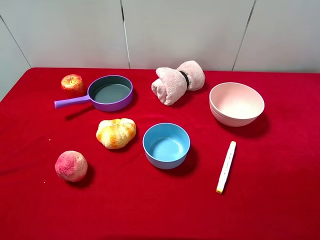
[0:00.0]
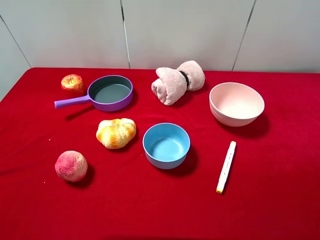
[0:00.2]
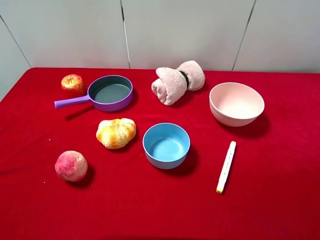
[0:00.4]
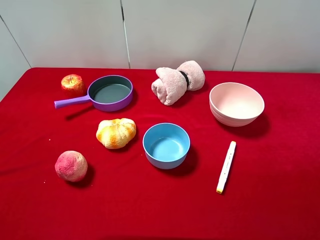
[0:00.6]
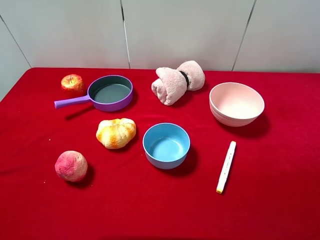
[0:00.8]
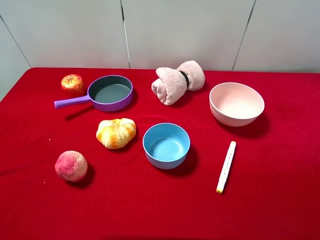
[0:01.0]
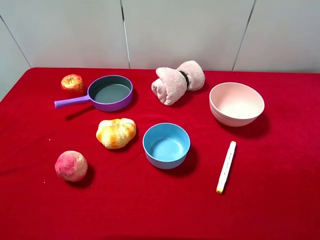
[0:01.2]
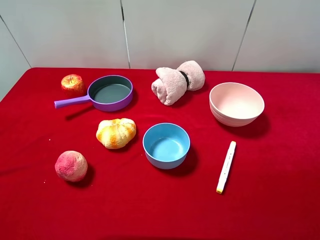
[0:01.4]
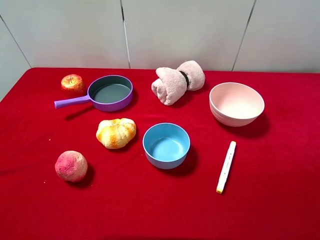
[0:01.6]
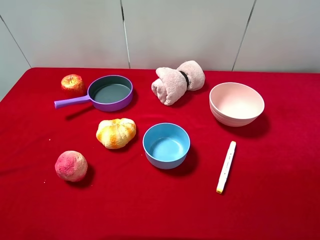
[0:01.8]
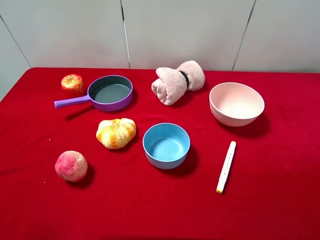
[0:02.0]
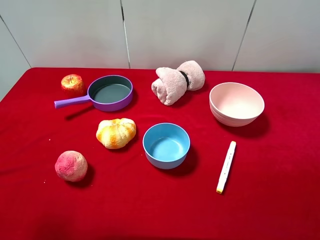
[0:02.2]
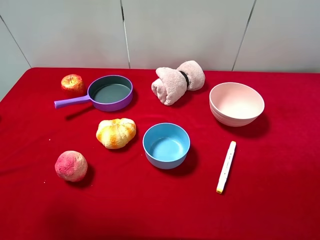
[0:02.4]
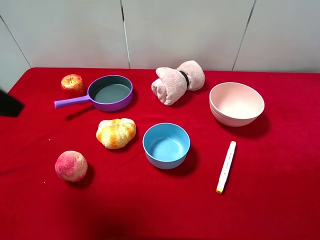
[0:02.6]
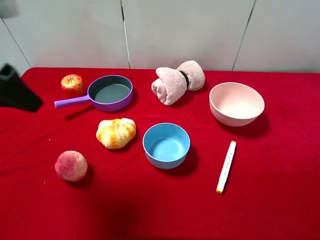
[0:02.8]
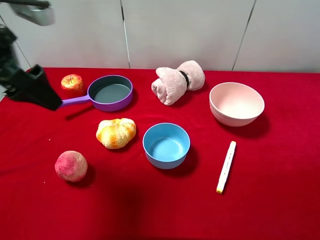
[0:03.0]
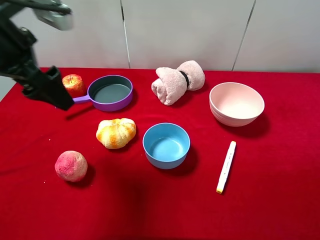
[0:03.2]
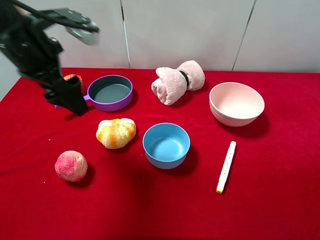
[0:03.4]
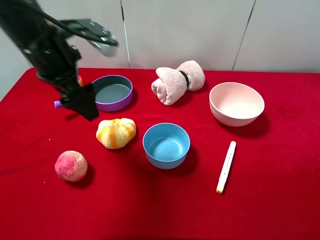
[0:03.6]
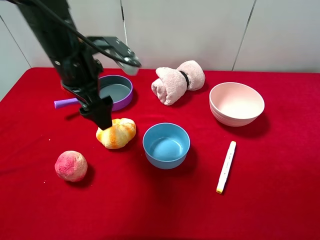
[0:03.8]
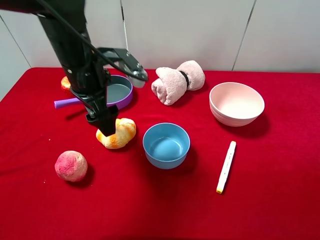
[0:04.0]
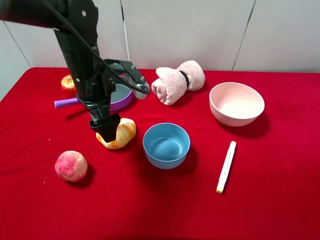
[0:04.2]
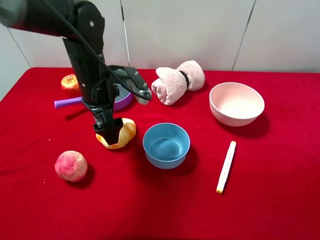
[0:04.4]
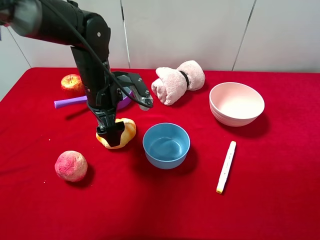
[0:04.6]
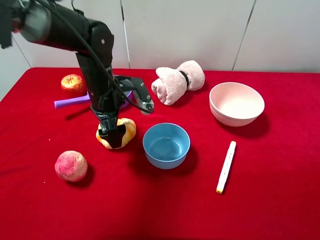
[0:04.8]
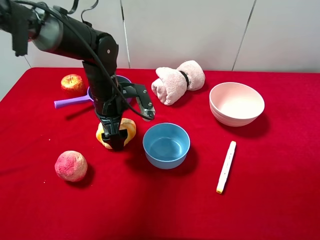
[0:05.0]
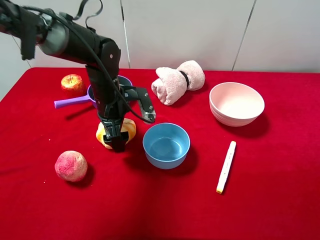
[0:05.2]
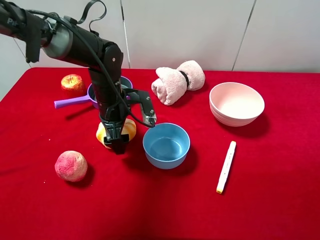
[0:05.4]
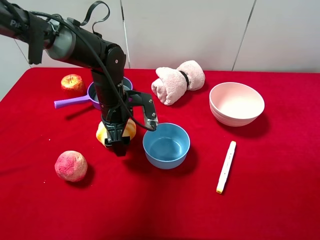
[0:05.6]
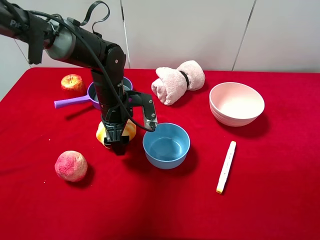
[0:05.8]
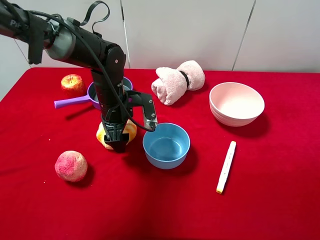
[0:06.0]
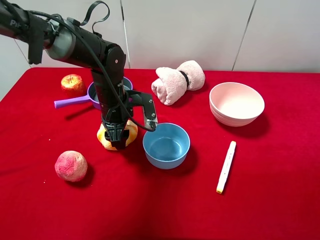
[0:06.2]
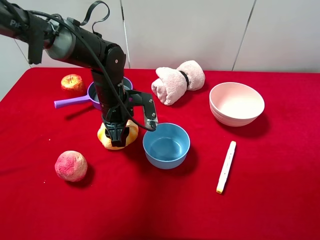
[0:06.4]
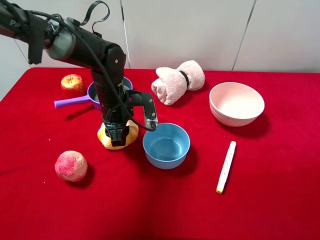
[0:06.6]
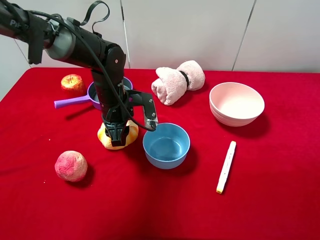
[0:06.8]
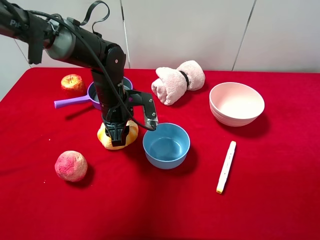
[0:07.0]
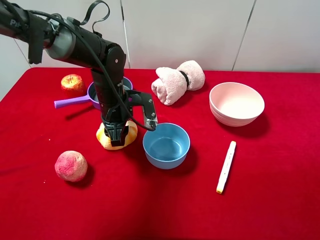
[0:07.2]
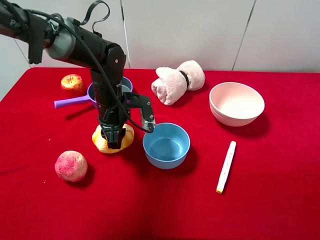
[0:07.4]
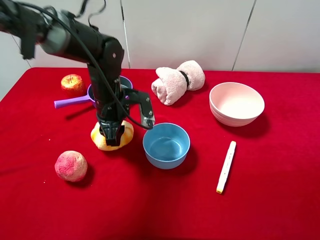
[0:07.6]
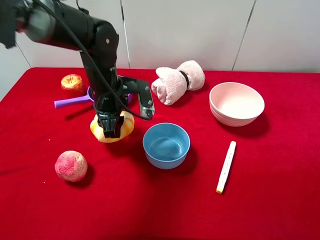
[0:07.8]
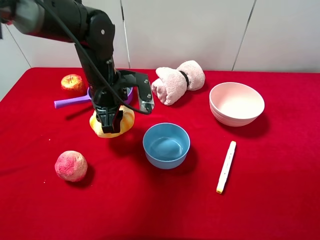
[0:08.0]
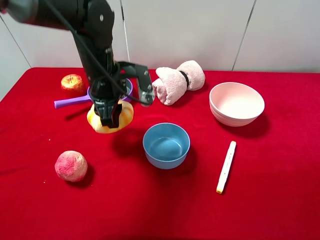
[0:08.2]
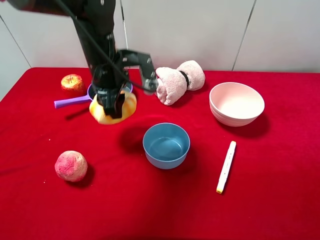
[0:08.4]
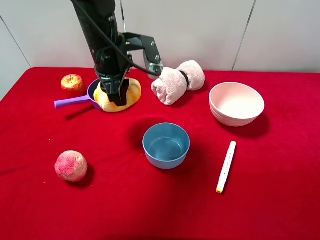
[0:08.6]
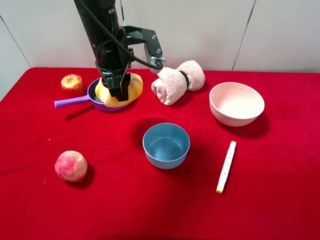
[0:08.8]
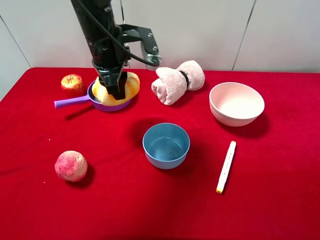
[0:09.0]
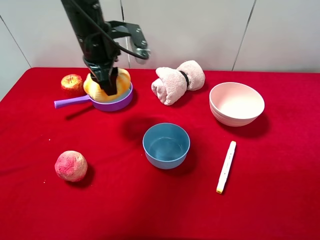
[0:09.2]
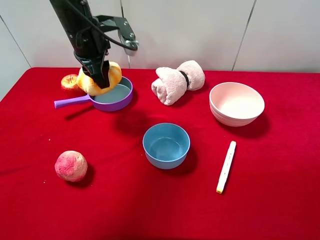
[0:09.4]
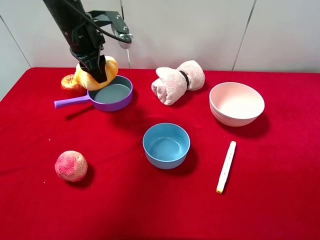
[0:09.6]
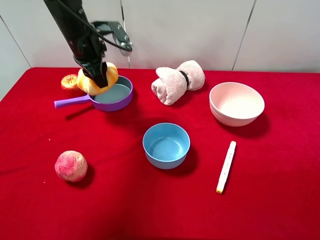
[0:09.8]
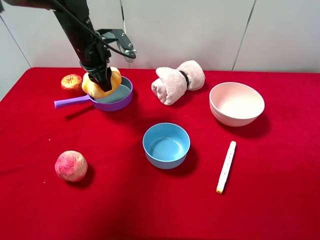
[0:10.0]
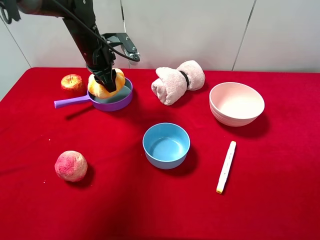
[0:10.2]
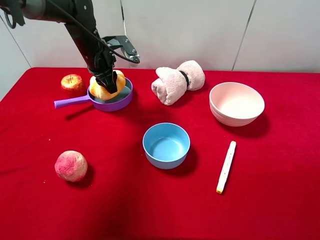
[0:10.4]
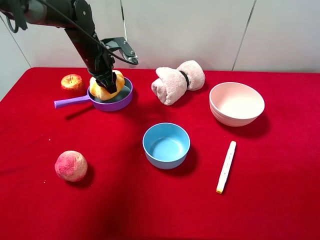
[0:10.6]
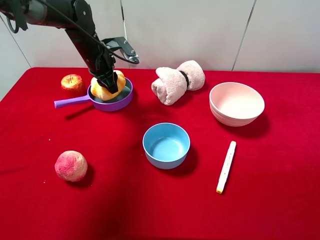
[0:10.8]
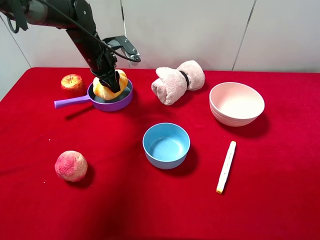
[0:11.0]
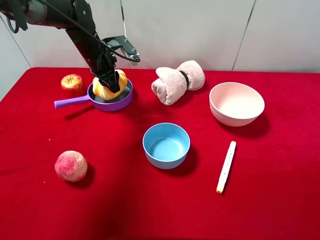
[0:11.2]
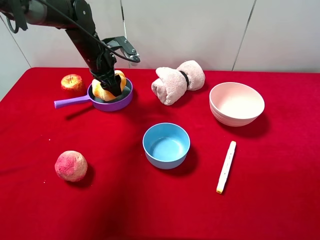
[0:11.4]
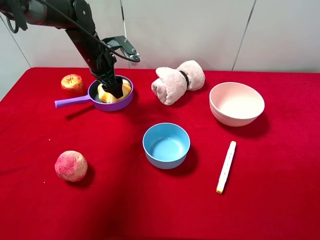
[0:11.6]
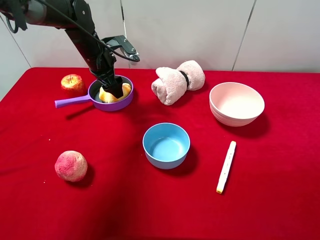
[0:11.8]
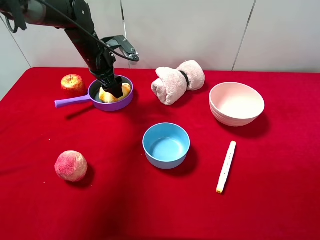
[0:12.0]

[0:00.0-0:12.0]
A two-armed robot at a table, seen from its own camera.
Task of the whole recording: pick up an item with a gripper and place it in a random container on the desktop.
0:01.6 to 0:03.0: The left gripper shifts some 25 cm forward.
0:03.0 to 0:04.4: The left gripper travels downward, to the right and forward by some 20 cm.
0:04.4 to 0:06.0: The left gripper moves downward, approximately 5 cm, and closes up.
0:06.0 to 0:07.6: The left gripper closes up.
0:07.6 to 0:09.0: The left gripper travels upward by some 10 cm.
0:09.0 to 0:10.4: The left gripper is displaced forward, downward and to the left by about 15 cm.
0:10.4 to 0:12.0: The left gripper opens up.

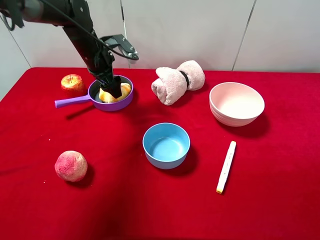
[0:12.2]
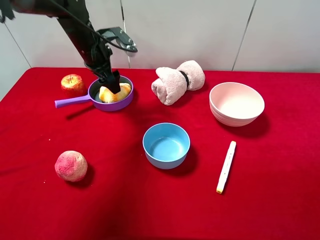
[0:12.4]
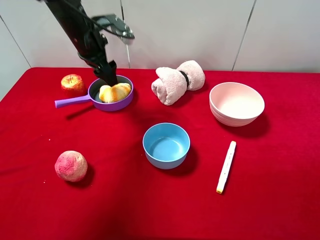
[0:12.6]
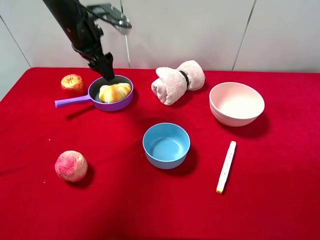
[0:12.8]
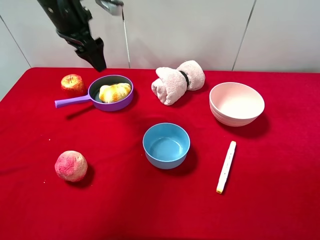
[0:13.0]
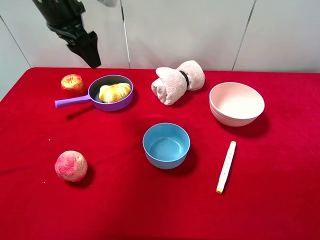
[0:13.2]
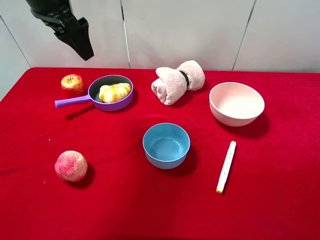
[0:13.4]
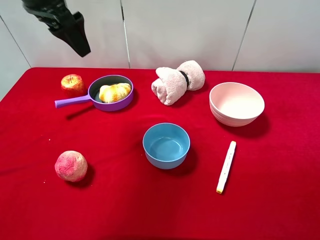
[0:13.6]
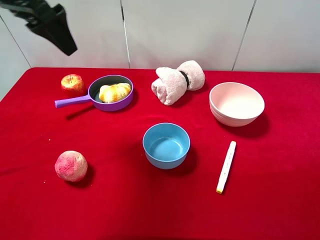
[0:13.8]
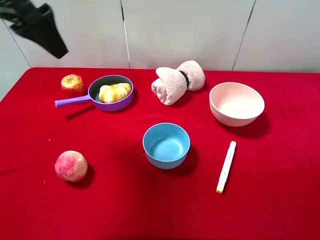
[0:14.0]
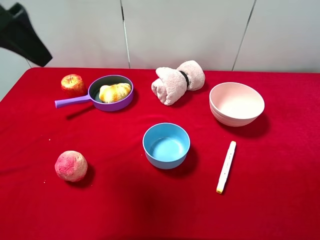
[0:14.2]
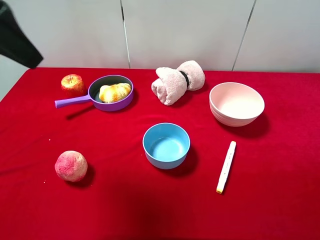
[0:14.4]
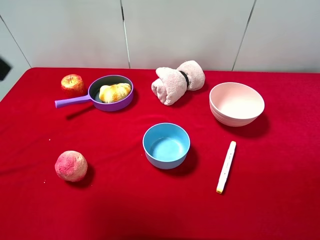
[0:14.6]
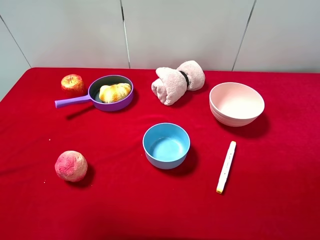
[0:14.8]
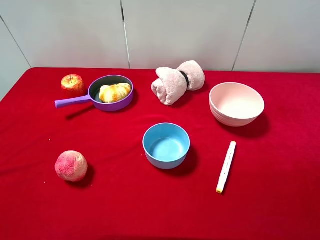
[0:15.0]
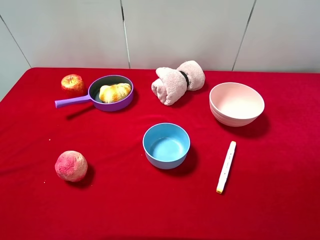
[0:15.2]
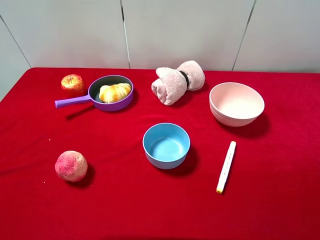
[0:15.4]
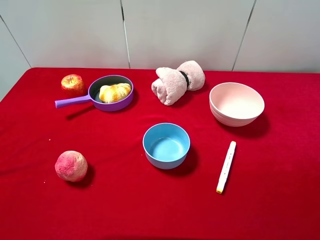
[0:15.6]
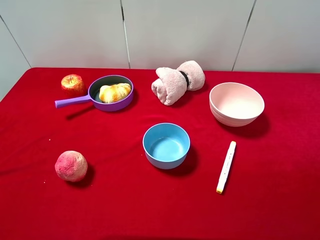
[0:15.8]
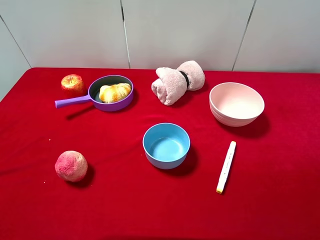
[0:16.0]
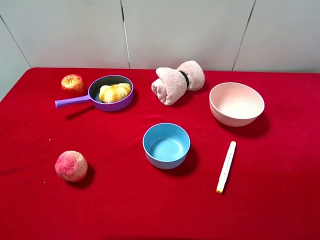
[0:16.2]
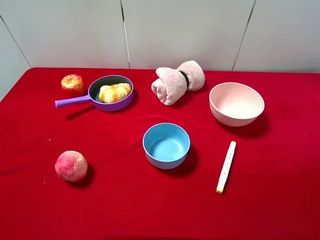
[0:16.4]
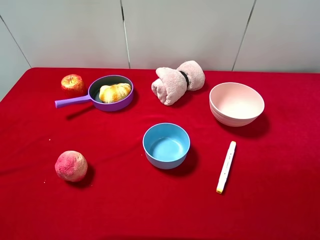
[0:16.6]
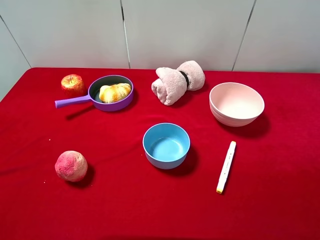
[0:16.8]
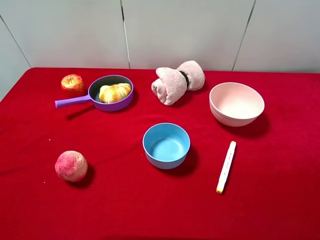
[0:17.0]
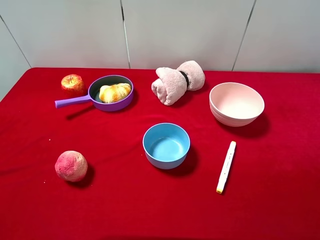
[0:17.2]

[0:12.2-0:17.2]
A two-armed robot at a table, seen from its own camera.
Task of the whole recording: pick up an item with a gripper and place it in a random container on the desktop.
0:12.2 to 0:13.8: The left gripper is displaced upward and backward by about 25 cm.
0:13.8 to 0:15.6: The left gripper moves backward, approximately 30 cm.

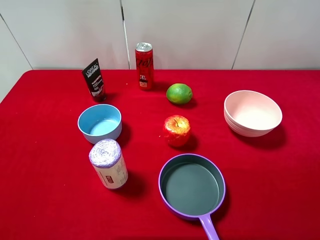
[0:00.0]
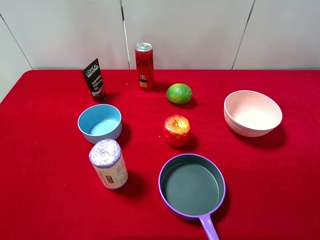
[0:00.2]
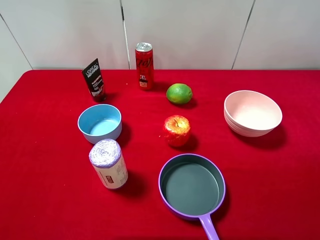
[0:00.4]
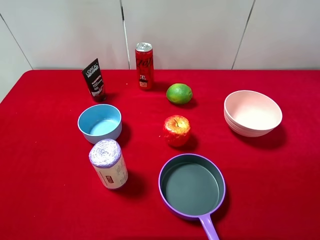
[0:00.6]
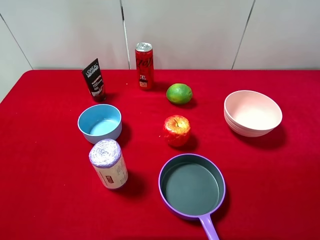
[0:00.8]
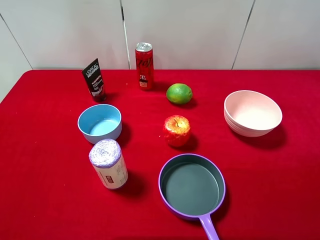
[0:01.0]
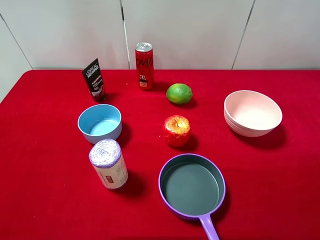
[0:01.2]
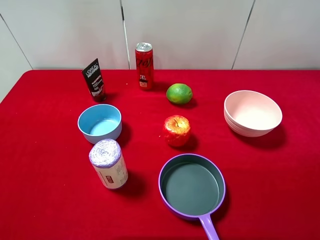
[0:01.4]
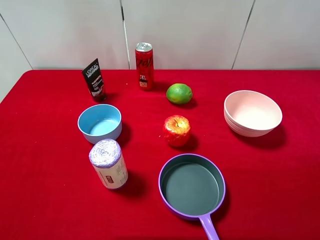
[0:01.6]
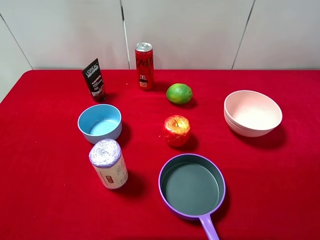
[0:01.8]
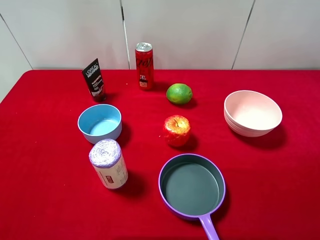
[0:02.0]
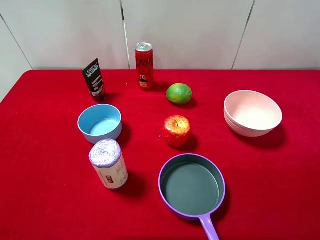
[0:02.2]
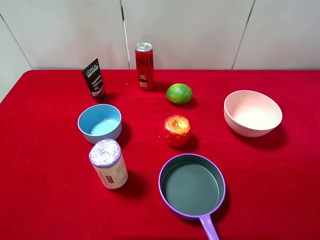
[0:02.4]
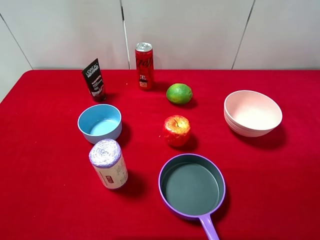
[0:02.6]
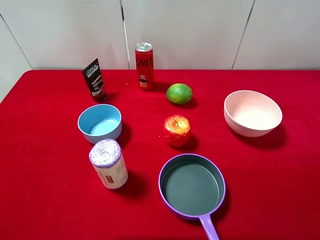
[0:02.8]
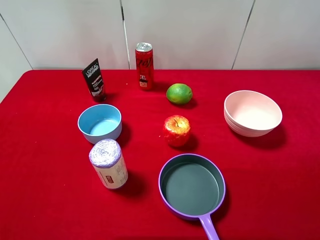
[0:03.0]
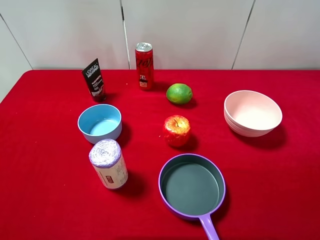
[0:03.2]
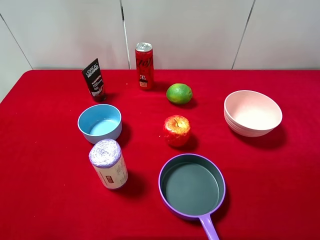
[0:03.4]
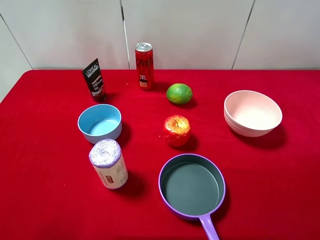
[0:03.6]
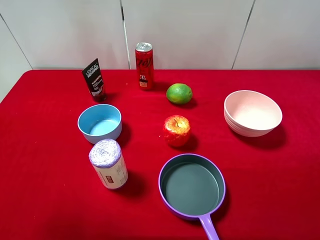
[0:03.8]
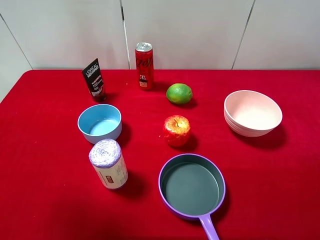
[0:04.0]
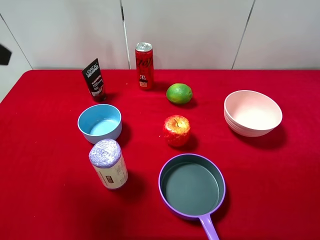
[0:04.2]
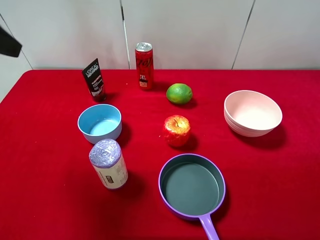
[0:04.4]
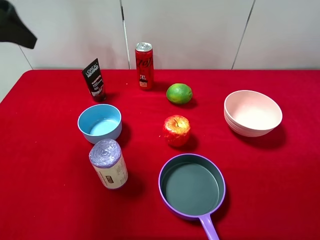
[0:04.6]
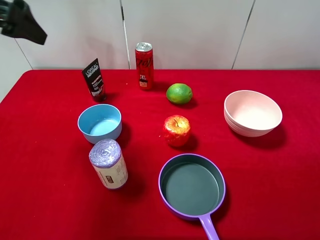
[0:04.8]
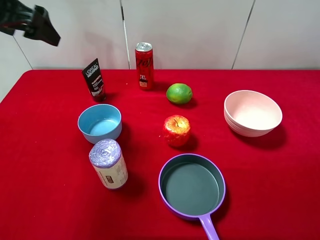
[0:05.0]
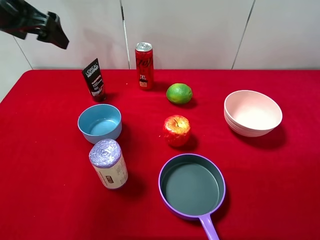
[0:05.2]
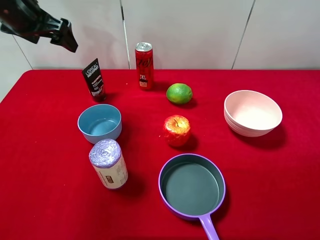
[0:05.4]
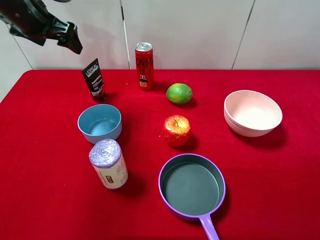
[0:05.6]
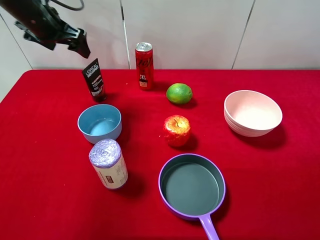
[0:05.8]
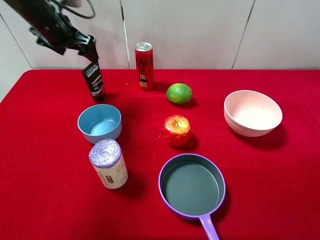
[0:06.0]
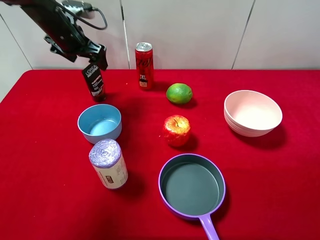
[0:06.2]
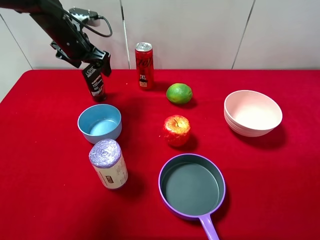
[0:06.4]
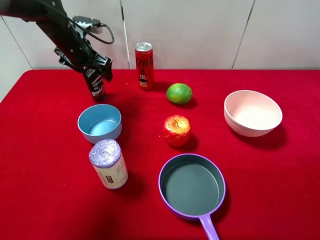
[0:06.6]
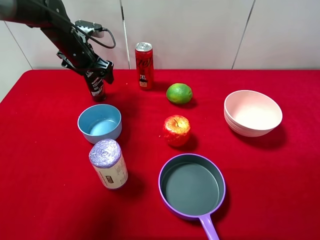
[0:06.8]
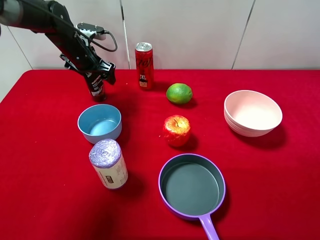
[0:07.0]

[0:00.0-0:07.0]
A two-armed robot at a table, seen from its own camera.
Task of the whole recording: pick up an item with a gripper and place it in a random container on the desktop.
0:01.4 to 0:02.8: Neither gripper changes place.
0:02.8 to 0:04.2: The left gripper is displaced forward and upward by about 20 cm.
0:04.2 to 0:05.6: The left gripper travels forward by roughly 20 cm.
0:05.6 to 0:07.0: The left gripper goes some 15 cm downward, forward and to the right.
